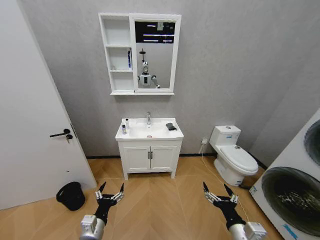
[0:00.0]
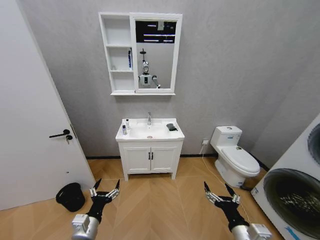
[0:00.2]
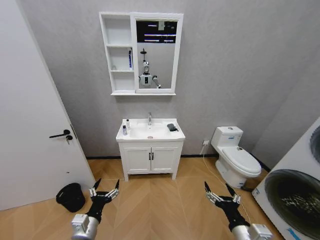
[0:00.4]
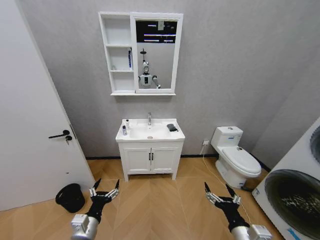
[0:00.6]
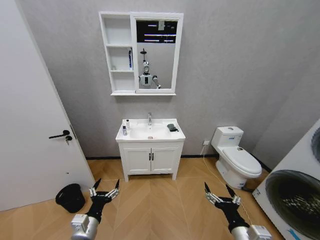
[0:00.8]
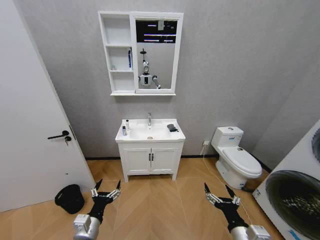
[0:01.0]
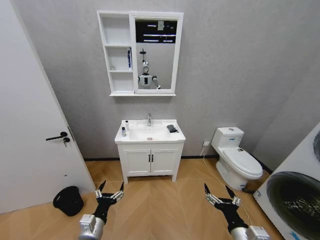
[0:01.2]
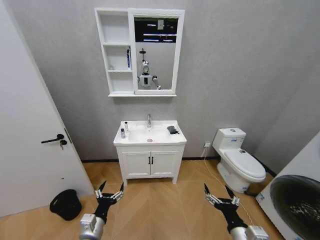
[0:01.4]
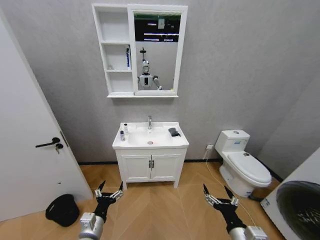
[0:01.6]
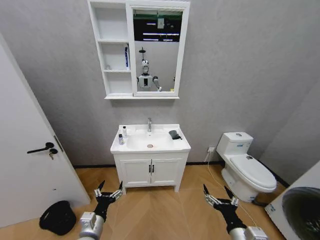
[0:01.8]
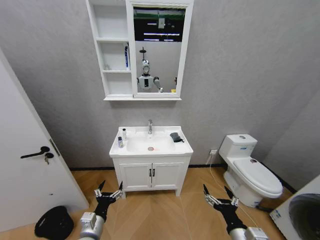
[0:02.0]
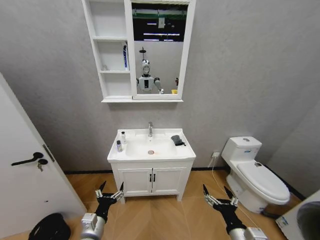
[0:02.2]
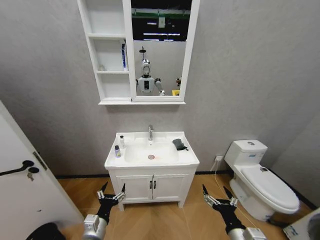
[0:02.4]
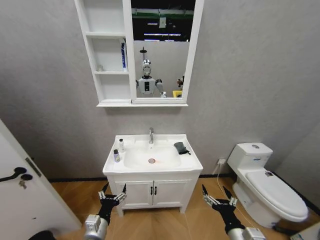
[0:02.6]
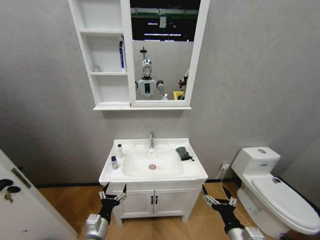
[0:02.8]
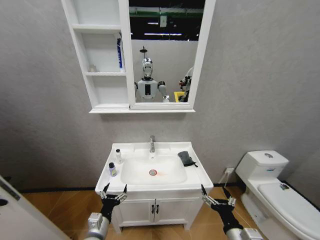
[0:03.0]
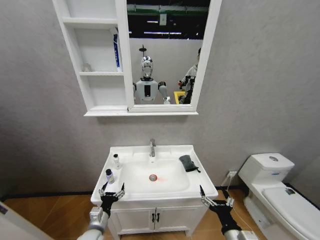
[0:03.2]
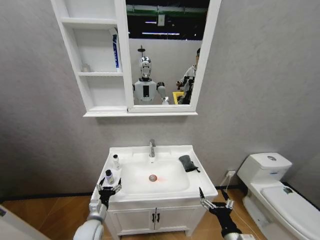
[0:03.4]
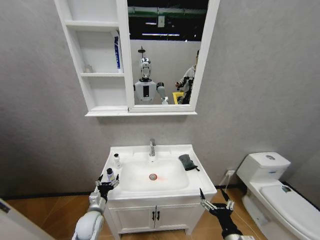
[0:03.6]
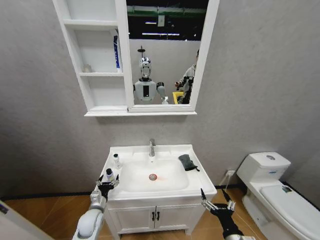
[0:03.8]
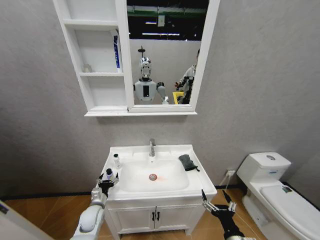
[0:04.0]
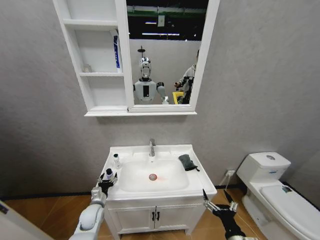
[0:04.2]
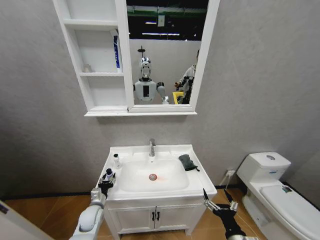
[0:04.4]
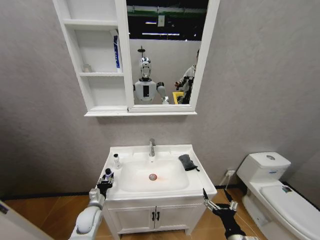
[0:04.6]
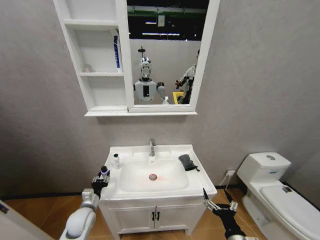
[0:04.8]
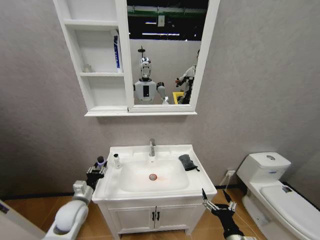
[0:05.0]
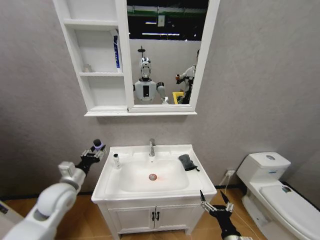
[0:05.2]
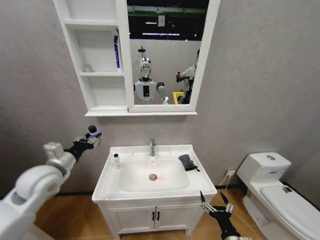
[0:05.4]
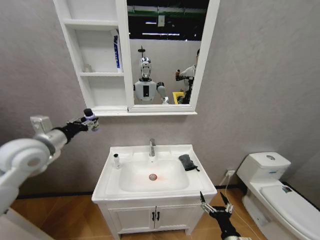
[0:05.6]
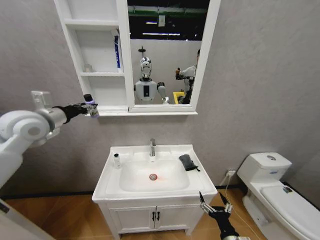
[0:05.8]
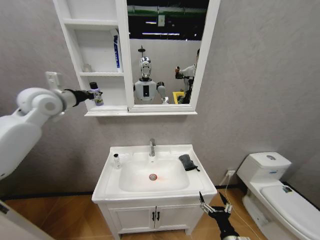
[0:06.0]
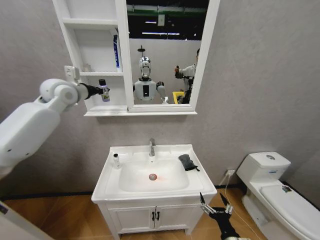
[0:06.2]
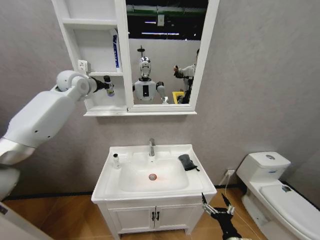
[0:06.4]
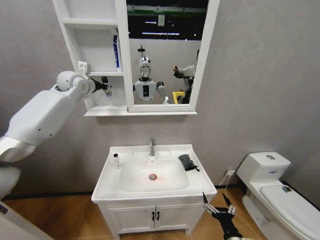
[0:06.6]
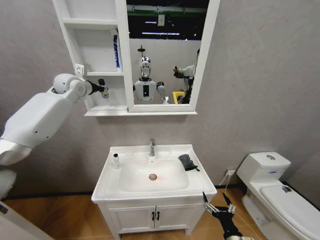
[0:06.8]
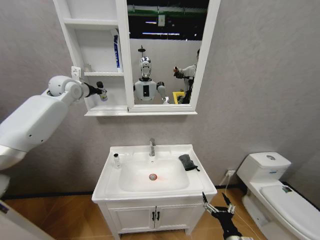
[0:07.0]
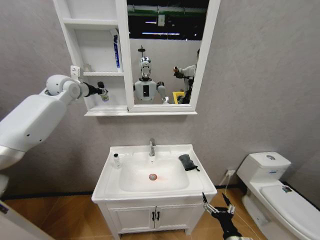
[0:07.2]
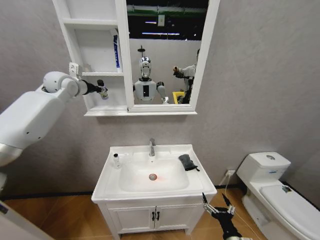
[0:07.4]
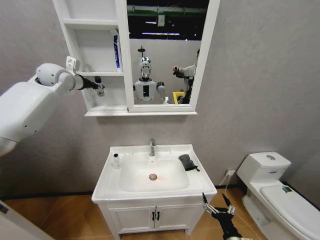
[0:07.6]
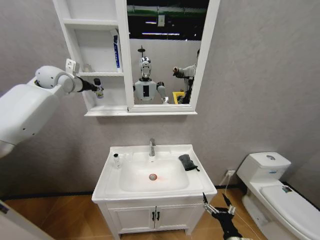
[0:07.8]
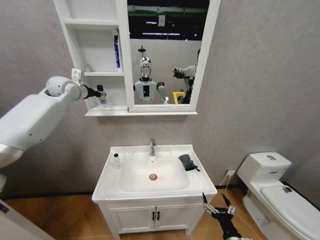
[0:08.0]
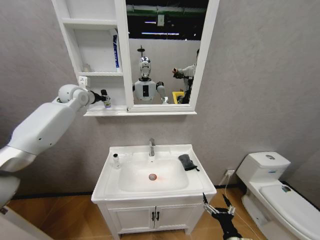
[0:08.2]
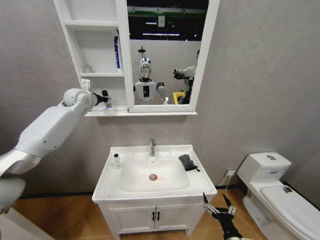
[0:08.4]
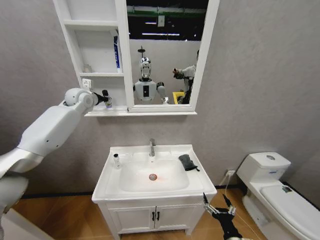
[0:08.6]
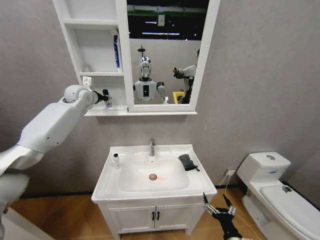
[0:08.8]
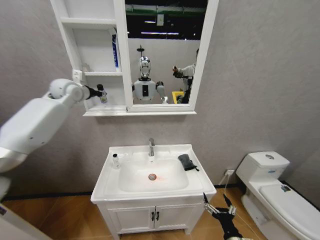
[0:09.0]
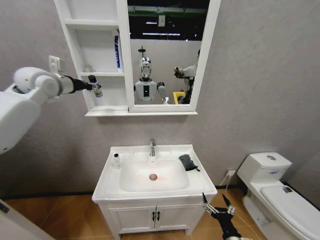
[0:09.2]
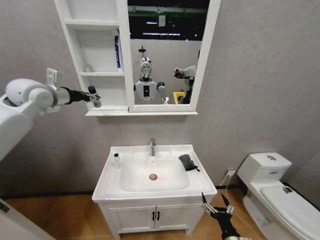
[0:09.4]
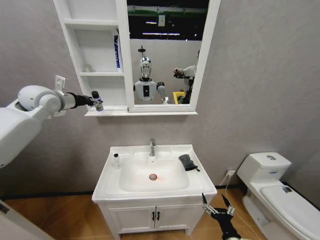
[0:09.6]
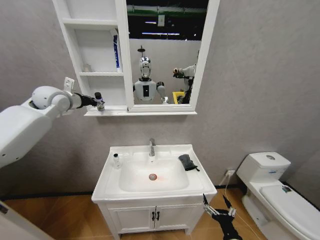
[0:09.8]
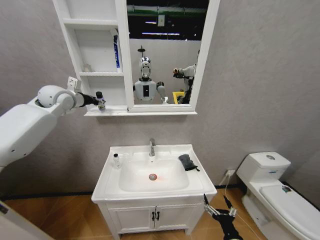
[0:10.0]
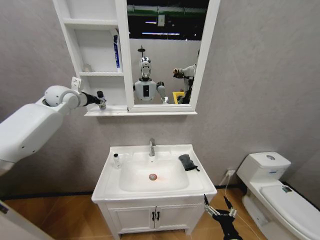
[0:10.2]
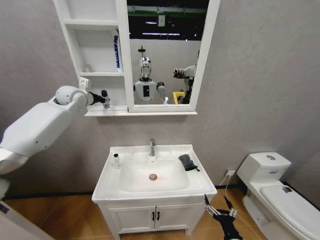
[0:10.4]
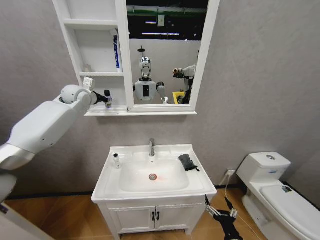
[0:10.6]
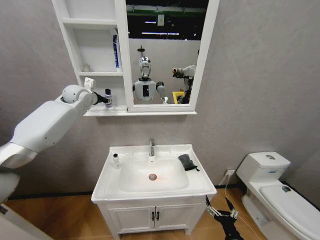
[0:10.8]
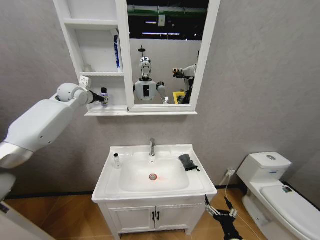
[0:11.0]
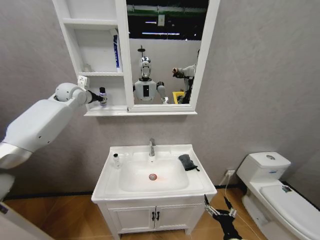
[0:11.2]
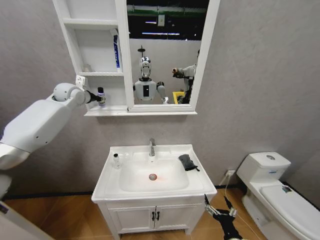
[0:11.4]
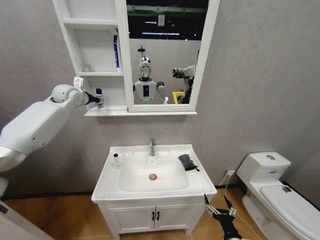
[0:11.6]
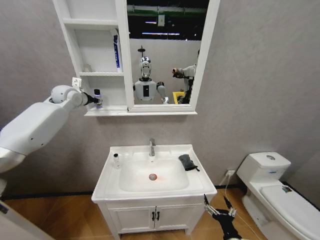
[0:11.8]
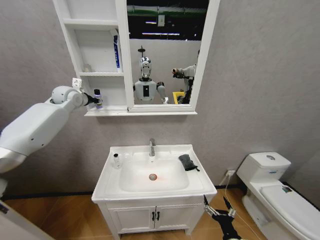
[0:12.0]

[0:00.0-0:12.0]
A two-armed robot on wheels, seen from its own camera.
Task of the whole recording: Move facial cleanser and shampoo from washbasin to cabinet, then wipe washbasin with towel.
0:03.0 to 0:04.4: The left gripper moves forward, to the left and downward, approximately 15 cm, and closes its fingers.
0:04.4 to 0:06.0: The left gripper moves upward, about 50 cm, and closes up.
0:06.0 to 0:07.6: The left gripper is displaced forward and upward by roughly 15 cm.
0:09.0 to 0:10.4: The left gripper moves about 10 cm backward and comes back.
0:10.4 to 0:12.0: There are only small adjustments of the grippers.

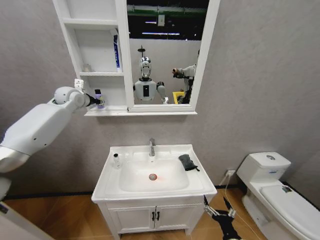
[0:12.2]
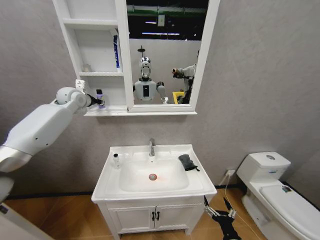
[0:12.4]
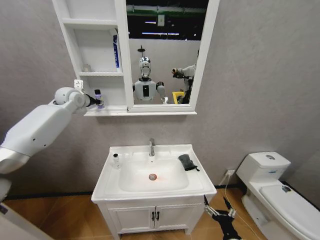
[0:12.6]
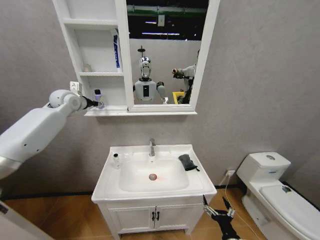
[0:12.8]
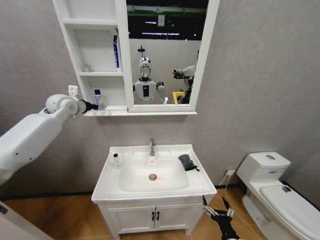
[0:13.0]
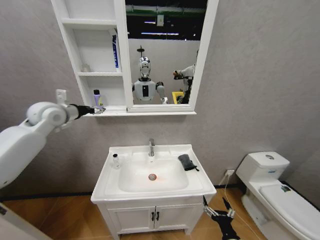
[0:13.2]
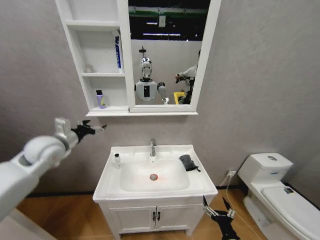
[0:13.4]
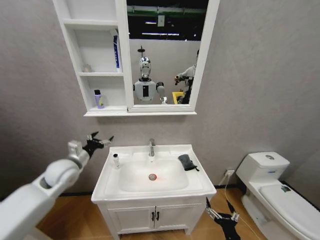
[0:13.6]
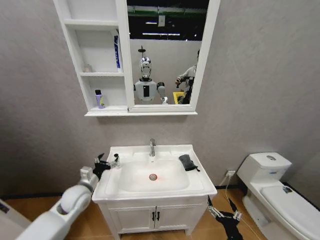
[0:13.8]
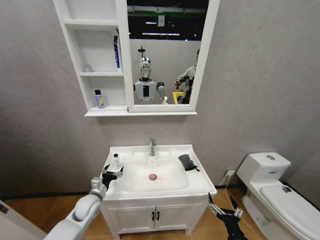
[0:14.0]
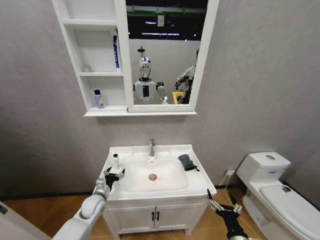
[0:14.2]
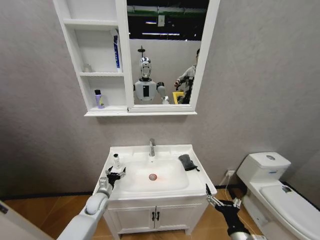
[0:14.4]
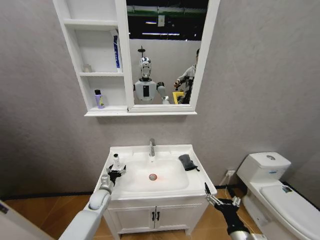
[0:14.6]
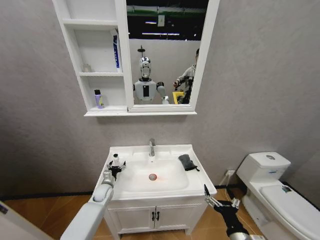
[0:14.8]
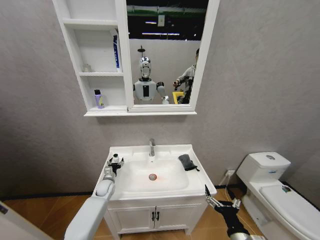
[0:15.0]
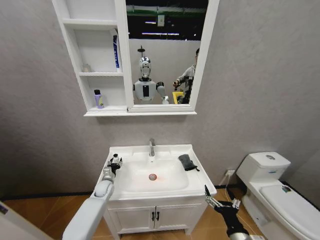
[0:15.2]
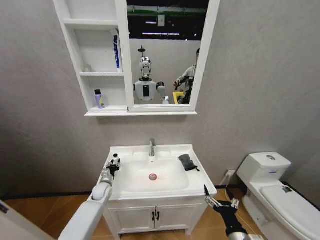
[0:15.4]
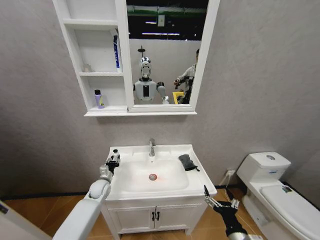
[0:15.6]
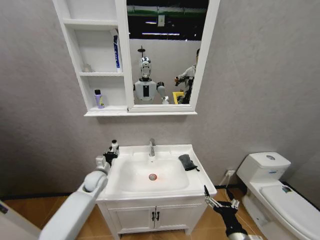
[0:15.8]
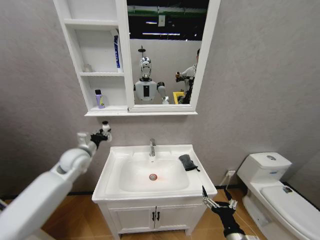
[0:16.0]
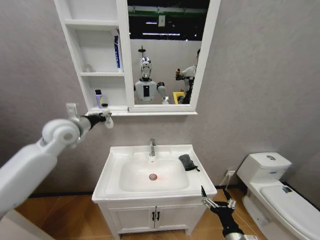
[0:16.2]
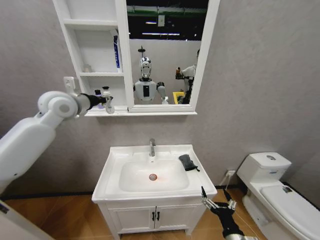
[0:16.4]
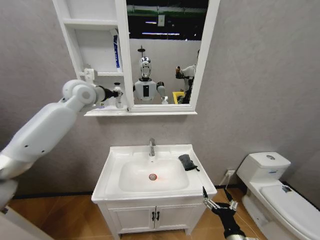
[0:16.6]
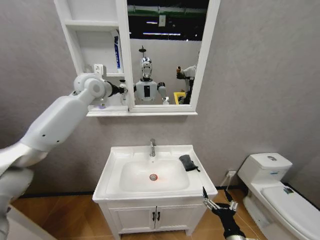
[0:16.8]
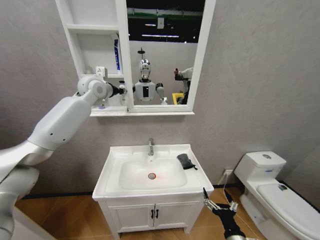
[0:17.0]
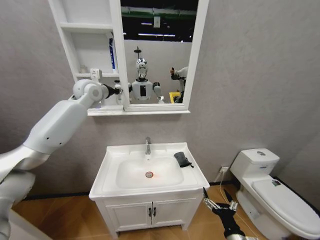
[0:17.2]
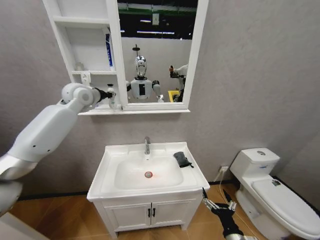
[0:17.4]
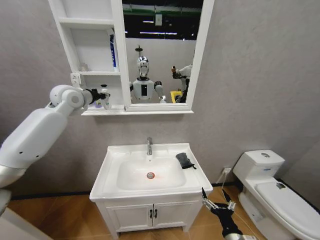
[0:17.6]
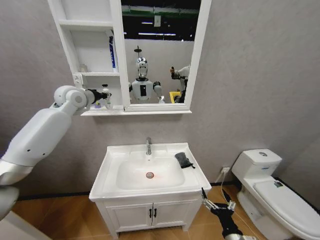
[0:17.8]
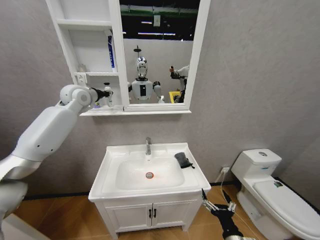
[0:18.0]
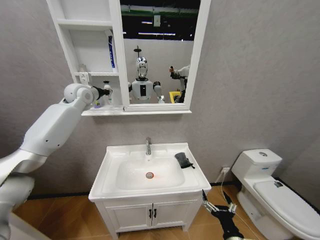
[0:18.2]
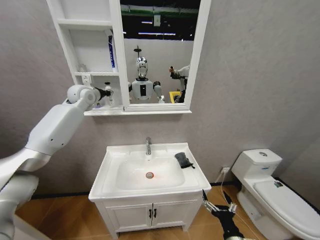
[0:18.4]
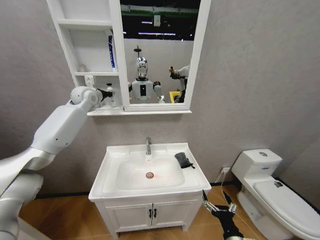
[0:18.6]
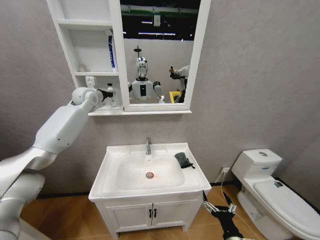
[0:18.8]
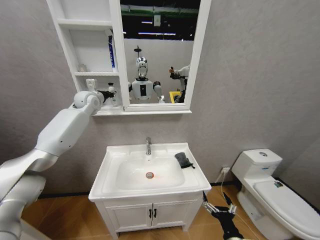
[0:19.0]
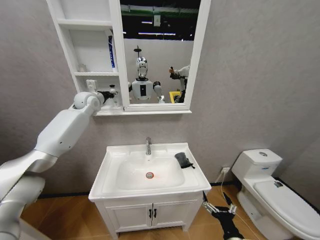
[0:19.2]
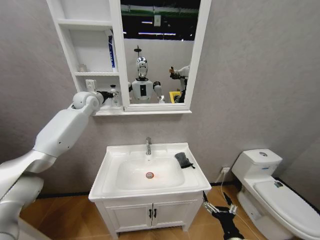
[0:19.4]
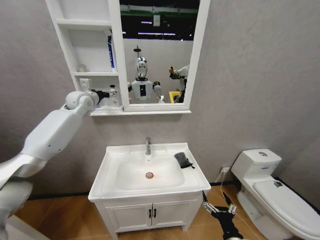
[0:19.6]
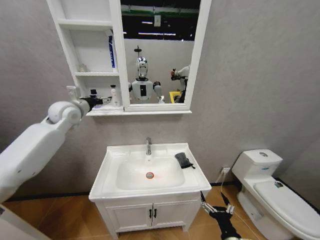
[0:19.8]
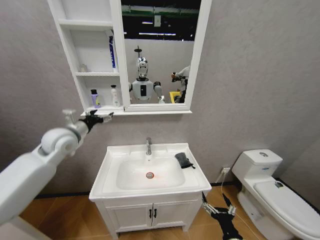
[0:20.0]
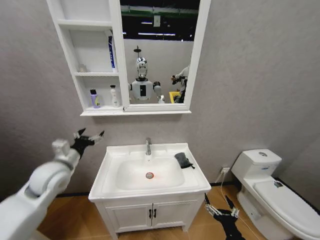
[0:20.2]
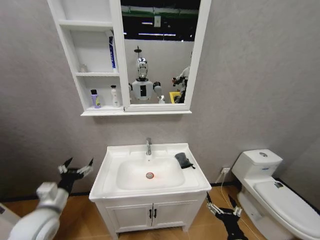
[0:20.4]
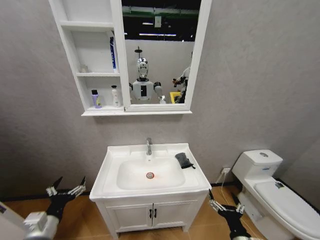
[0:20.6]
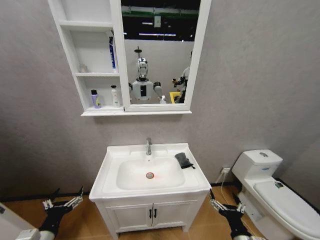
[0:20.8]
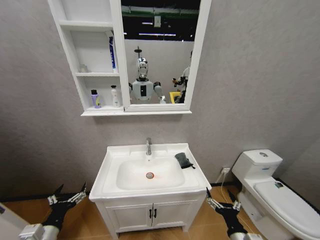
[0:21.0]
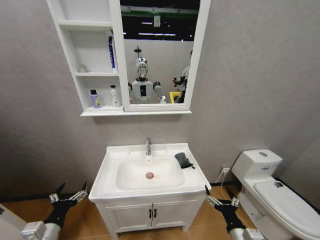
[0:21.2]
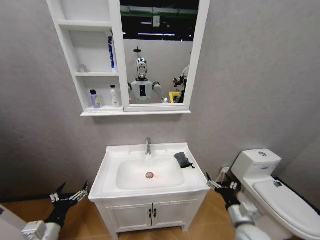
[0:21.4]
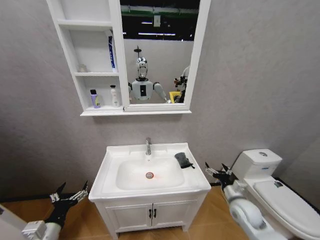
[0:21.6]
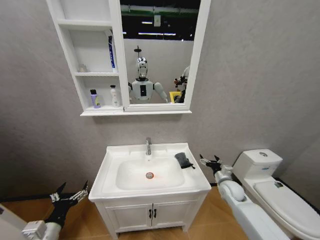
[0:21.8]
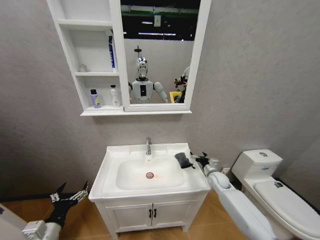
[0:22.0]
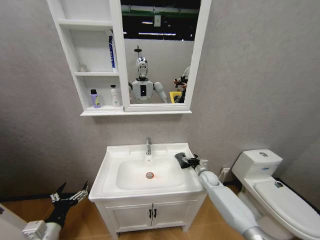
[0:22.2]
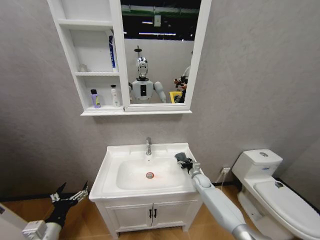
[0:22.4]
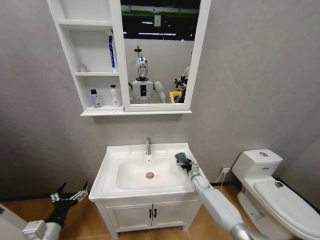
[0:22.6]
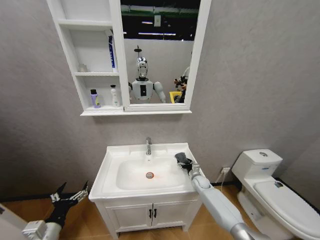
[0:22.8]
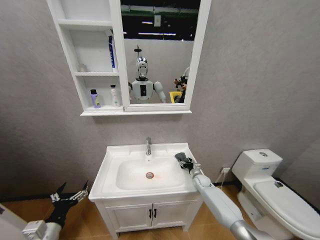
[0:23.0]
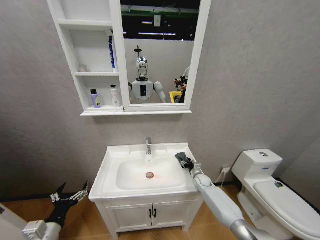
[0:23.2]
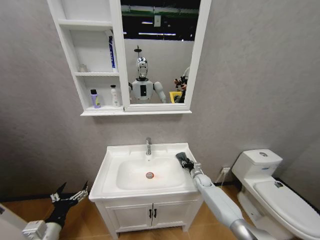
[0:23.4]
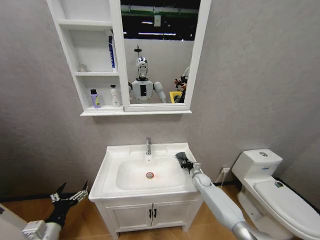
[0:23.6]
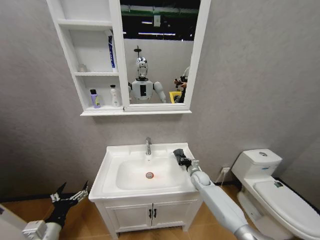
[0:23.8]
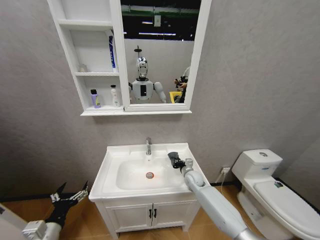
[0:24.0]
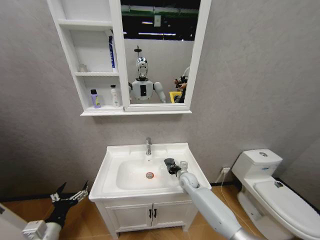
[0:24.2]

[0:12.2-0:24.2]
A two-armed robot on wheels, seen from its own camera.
Task of the whole recording: Move facial cleanser and shampoo from washbasin to cabinet, then wipe washbasin with towel.
0:12.2 to 0:13.8: The left gripper is displaced downward and backward by roughly 40 cm, and opens.
0:13.8 to 0:15.2: The left gripper travels downward and forward by about 20 cm, and closes its fingers, while the right gripper moves upward, approximately 5 cm.
0:15.2 to 0:16.6: The left gripper travels upward by roughly 50 cm, and closes up.
0:16.6 to 0:18.2: The left gripper shifts about 5 cm forward.
0:18.2 to 0:19.8: The left gripper shifts approximately 10 cm backward and downward, and opens up.
0:19.8 to 0:21.2: The left gripper shifts about 50 cm downward and backward.
0:21.2 to 0:22.6: The right gripper is displaced forward by roughly 35 cm.
0:22.6 to 0:24.2: The right gripper is displaced to the left and upward by some 10 cm, and closes its fingers.
